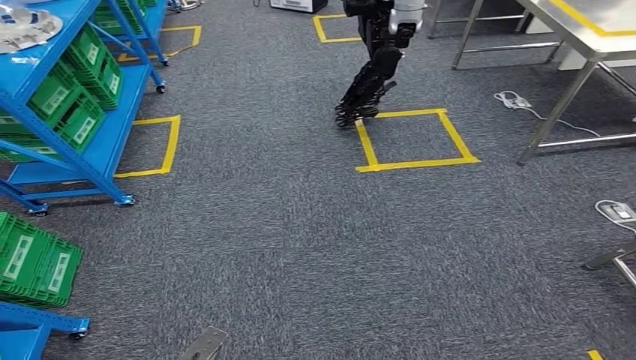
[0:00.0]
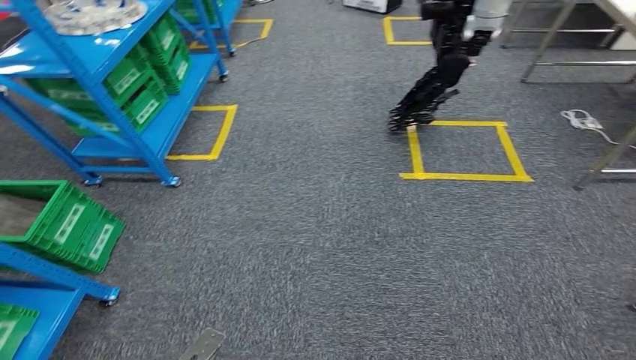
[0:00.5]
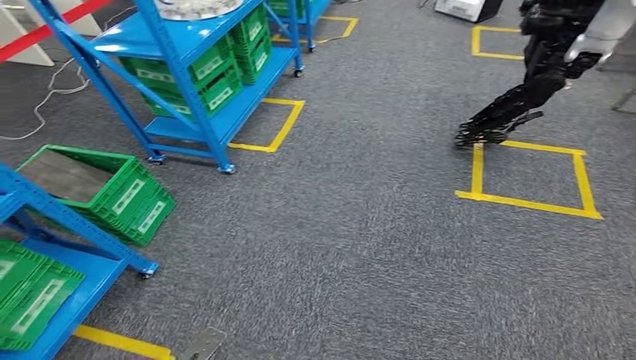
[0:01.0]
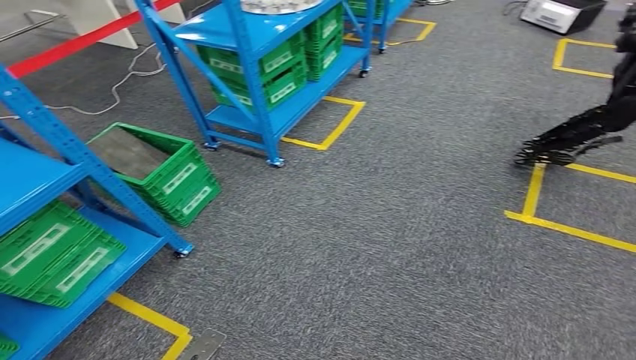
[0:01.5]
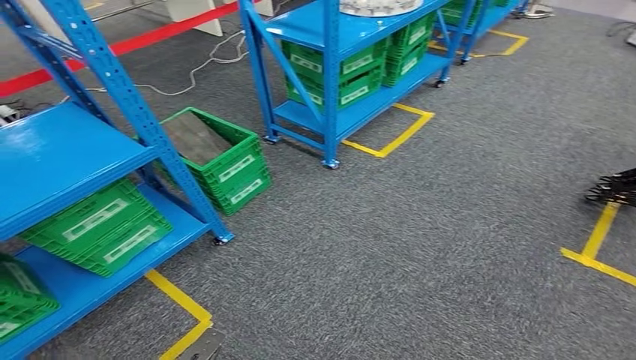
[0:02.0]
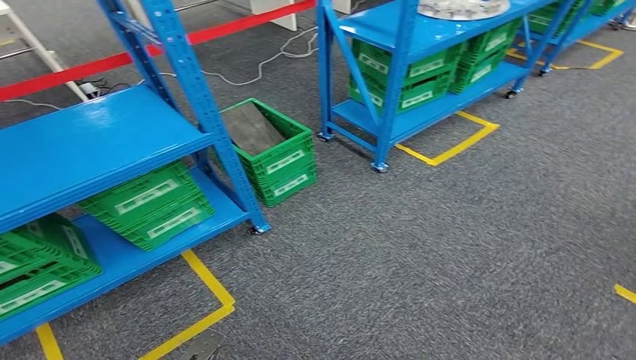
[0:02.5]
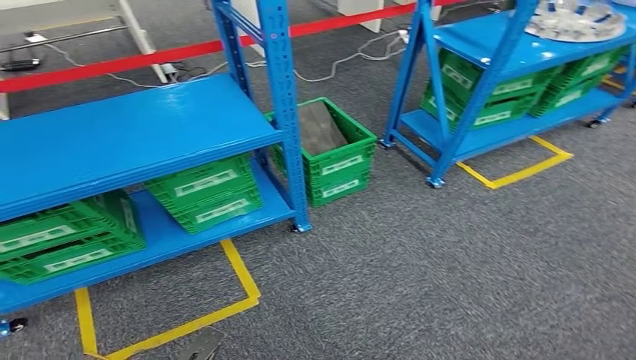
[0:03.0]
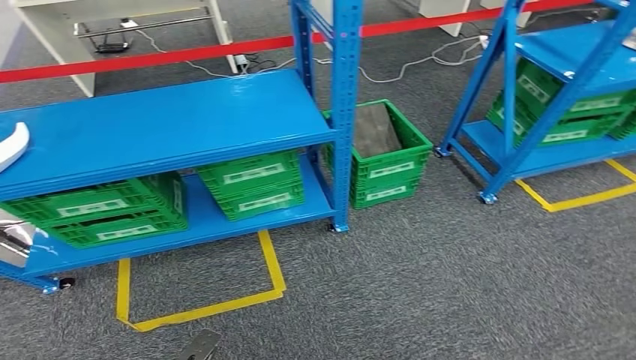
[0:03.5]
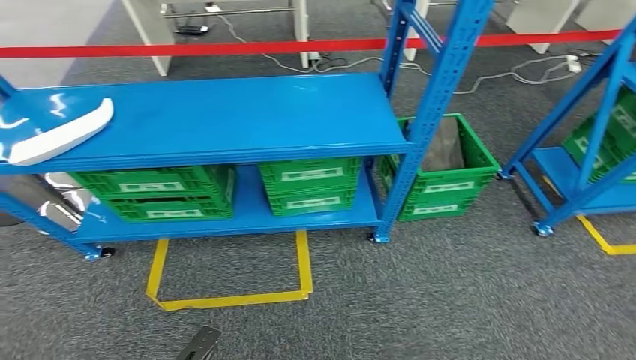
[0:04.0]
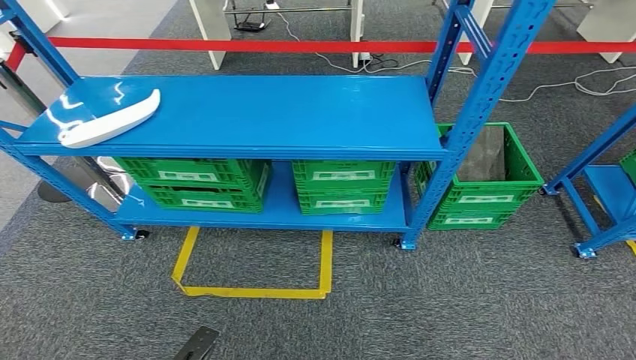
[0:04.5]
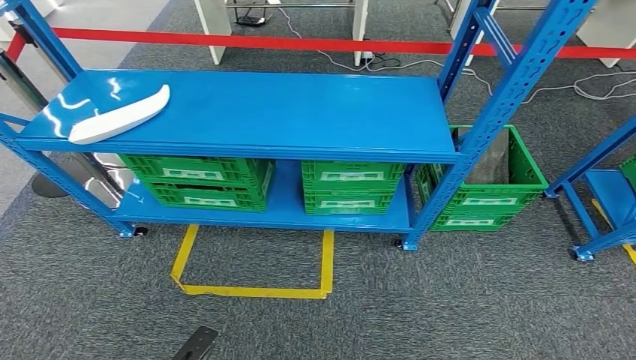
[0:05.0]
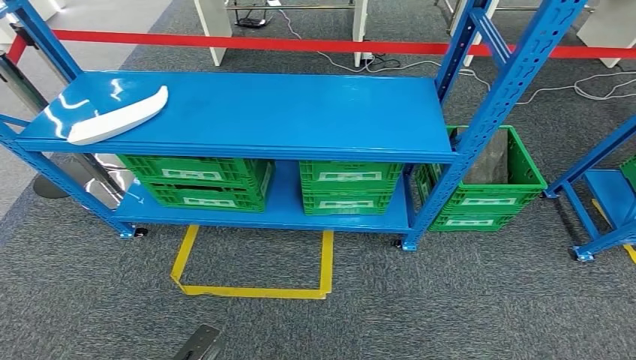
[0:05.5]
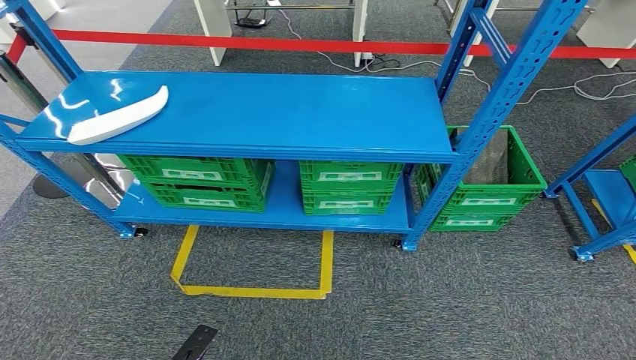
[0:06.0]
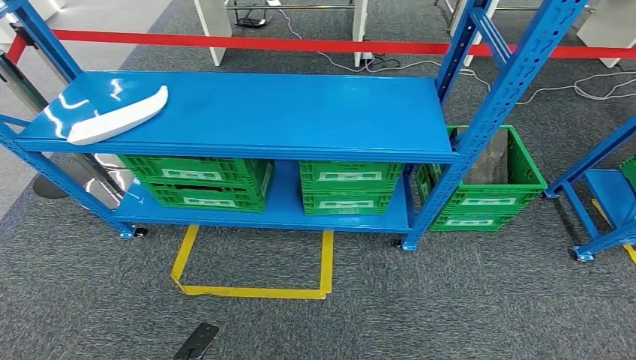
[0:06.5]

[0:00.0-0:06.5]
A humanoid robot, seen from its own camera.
Step, 0:00.0 to 0:06.5: Move to the initial position of the workbench.
0:04.5 to 0:06.5: The hands move only a little.
